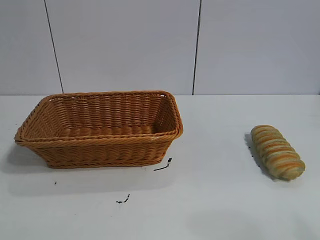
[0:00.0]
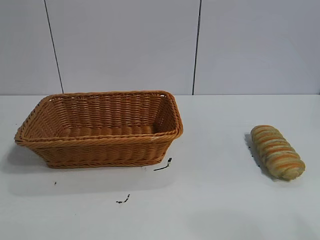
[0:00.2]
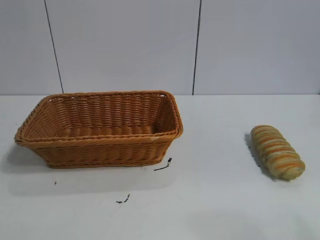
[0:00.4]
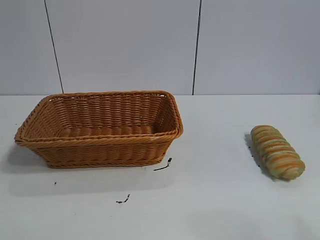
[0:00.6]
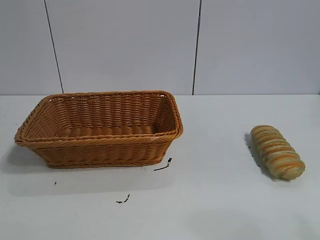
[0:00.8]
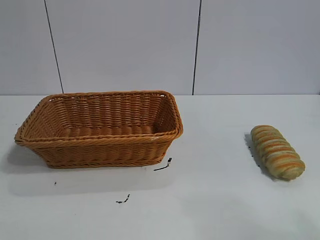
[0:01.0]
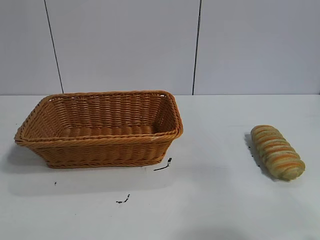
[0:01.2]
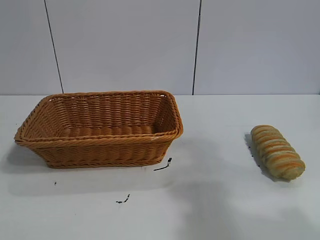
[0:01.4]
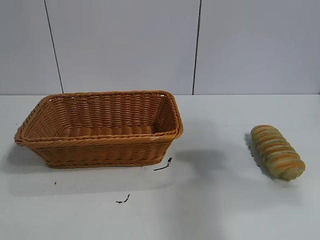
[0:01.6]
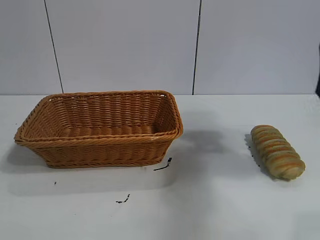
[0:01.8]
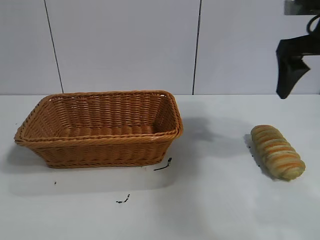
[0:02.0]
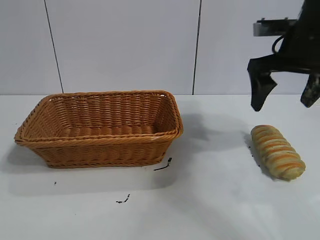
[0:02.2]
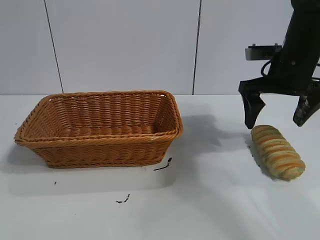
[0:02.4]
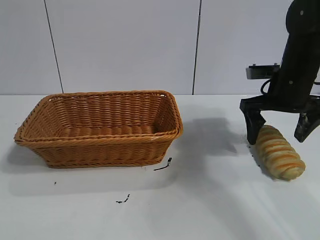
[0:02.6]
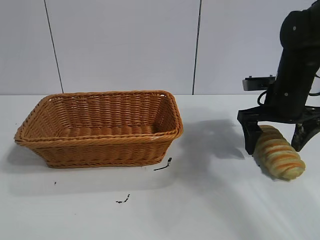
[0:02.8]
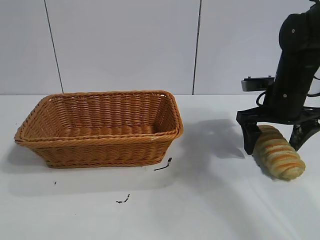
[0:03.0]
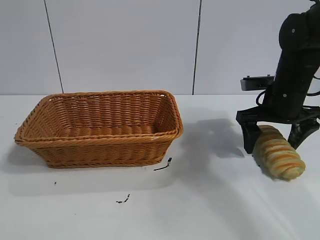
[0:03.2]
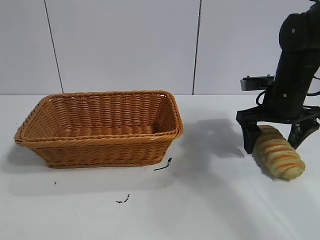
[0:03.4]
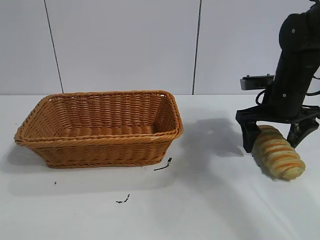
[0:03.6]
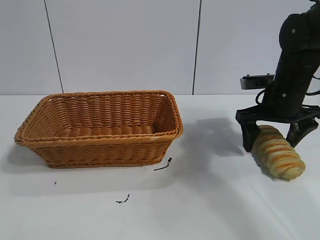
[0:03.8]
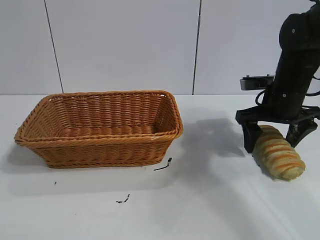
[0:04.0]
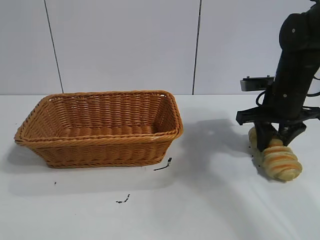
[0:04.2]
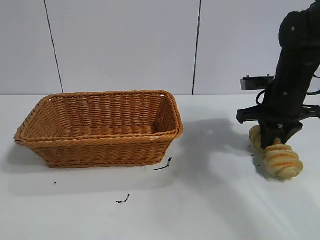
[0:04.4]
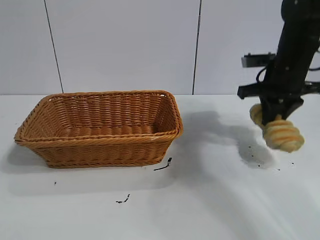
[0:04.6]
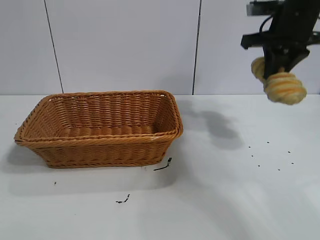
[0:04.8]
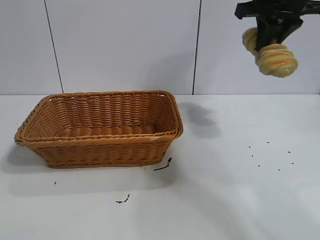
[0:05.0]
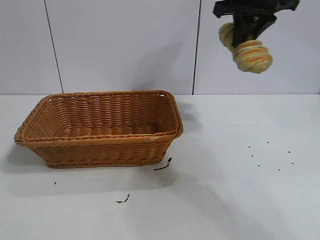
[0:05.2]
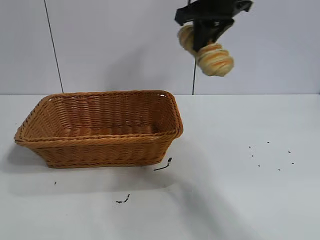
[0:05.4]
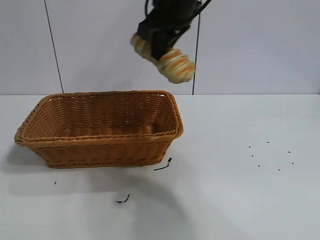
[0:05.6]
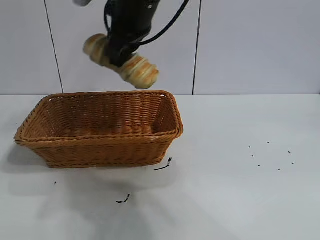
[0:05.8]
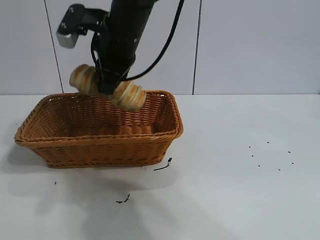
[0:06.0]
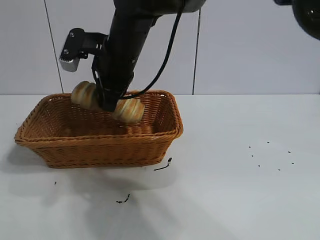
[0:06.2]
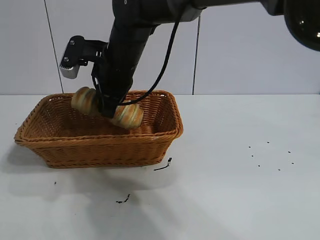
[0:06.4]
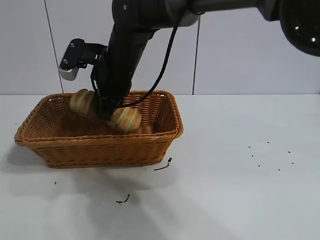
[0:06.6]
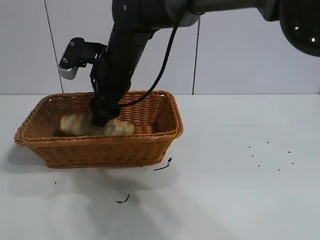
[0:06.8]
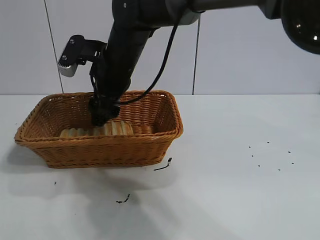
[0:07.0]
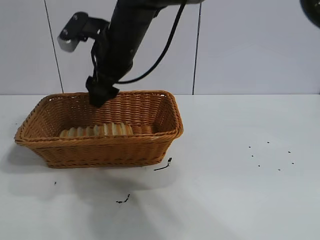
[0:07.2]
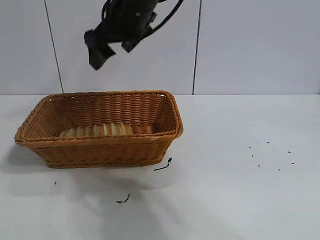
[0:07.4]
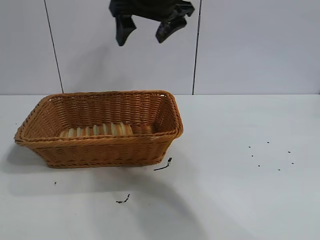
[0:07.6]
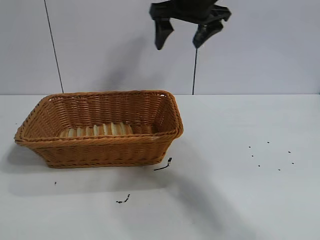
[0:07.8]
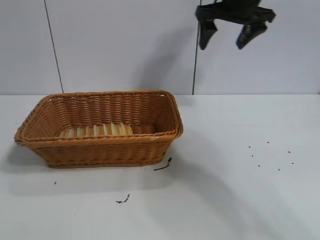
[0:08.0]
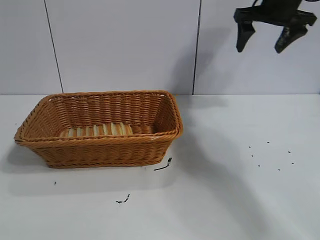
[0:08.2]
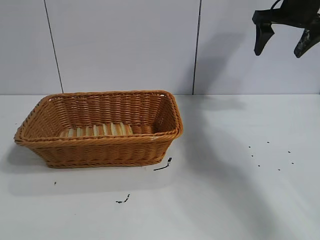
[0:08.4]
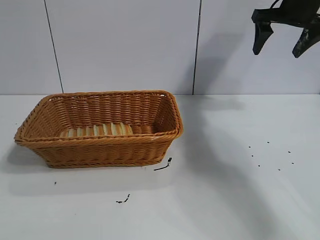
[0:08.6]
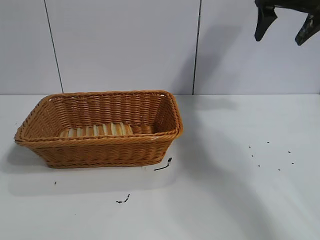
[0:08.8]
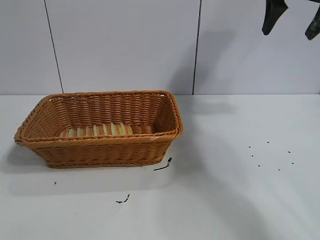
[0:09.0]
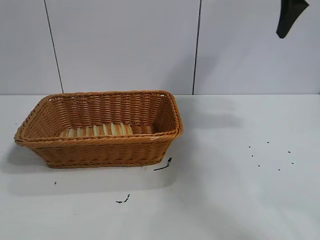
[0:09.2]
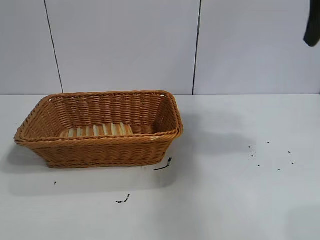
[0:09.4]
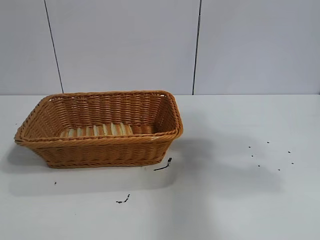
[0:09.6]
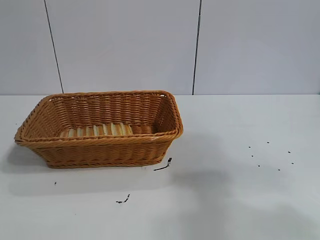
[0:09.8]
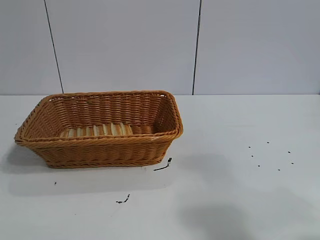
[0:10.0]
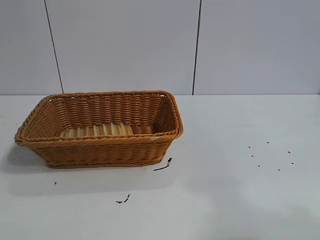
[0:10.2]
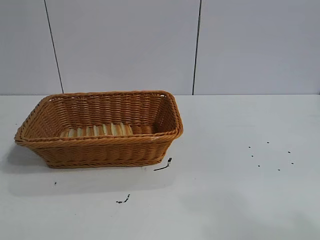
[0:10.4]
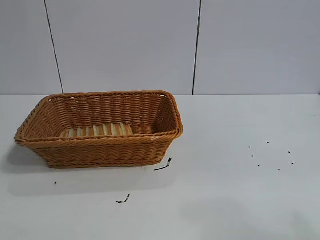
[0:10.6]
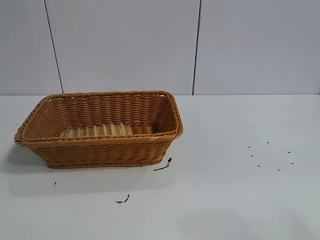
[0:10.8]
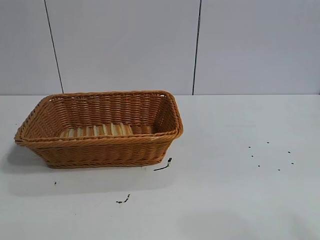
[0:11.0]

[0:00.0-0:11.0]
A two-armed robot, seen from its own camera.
Task of the whole recording: pick up the long bread and put it into the basket.
Step, 0:01.8 to 0:04.4: Grasp the long bread with right gripper.
Step, 0:04.6 to 0:07.2: Place the long bread in the basket with right gripper.
